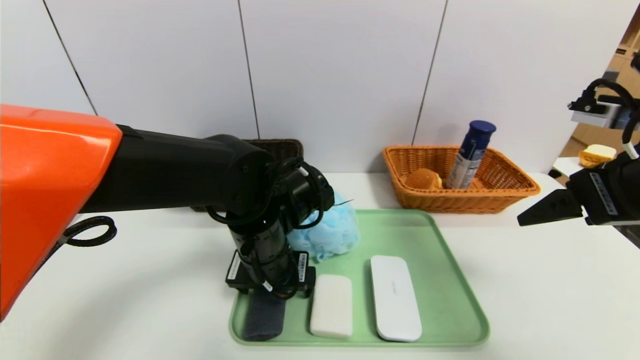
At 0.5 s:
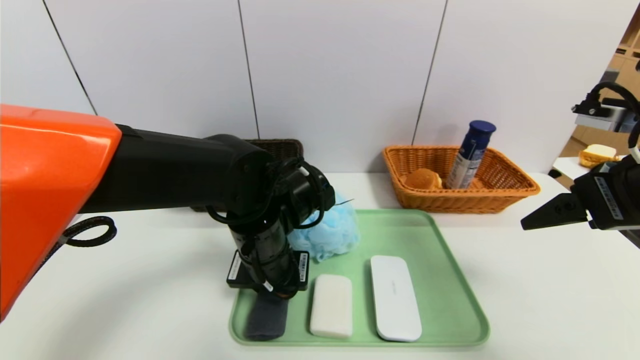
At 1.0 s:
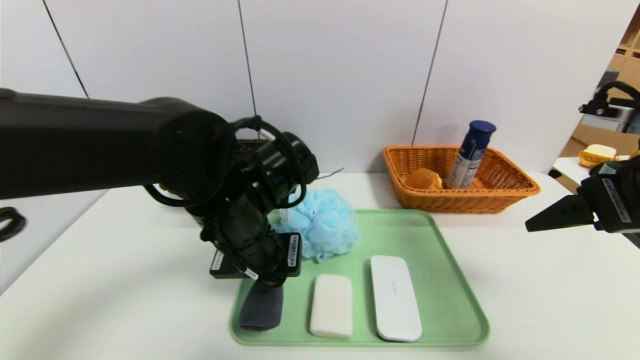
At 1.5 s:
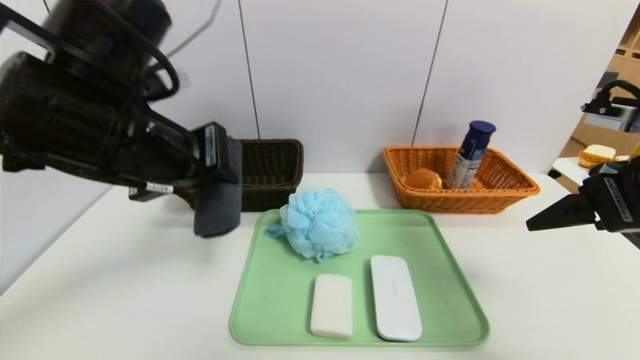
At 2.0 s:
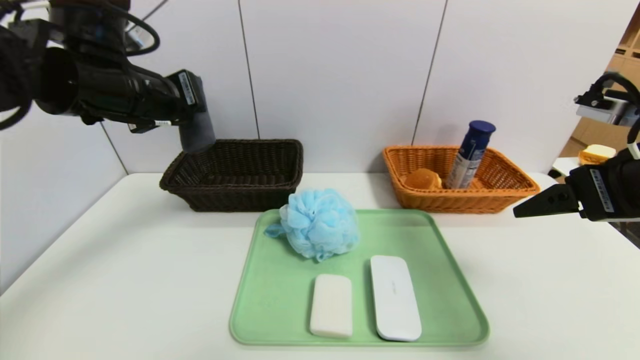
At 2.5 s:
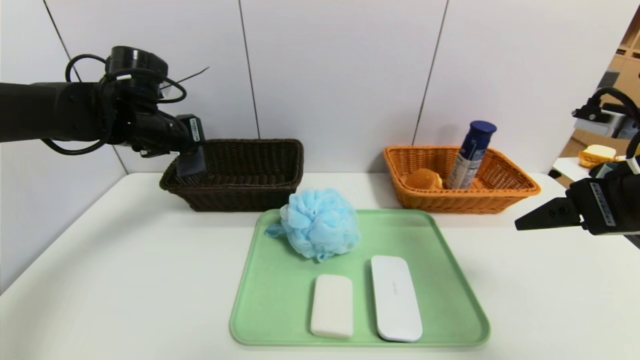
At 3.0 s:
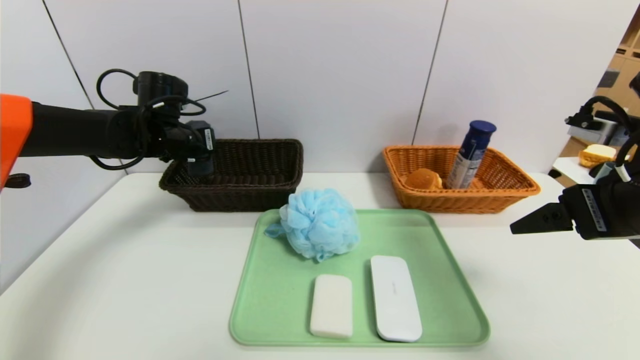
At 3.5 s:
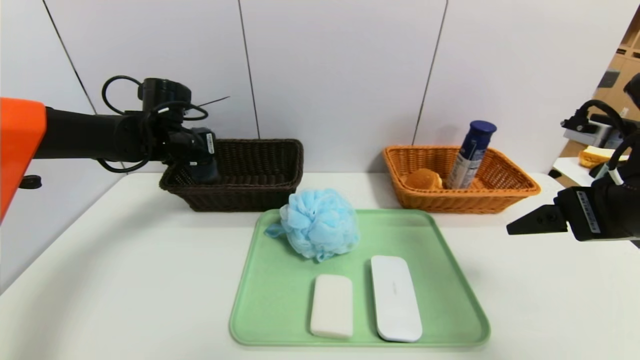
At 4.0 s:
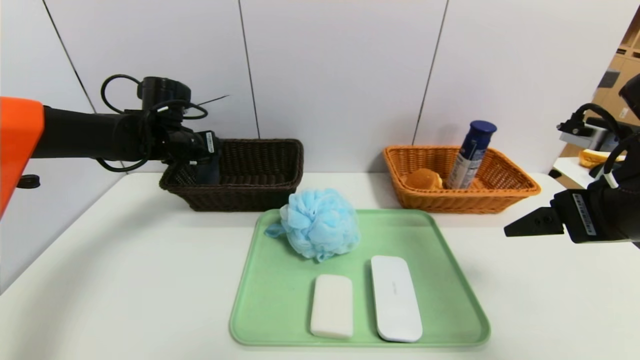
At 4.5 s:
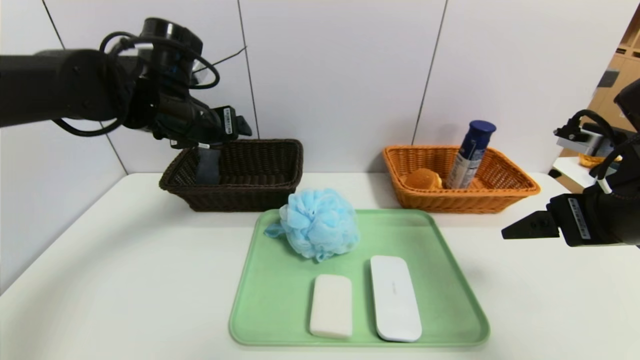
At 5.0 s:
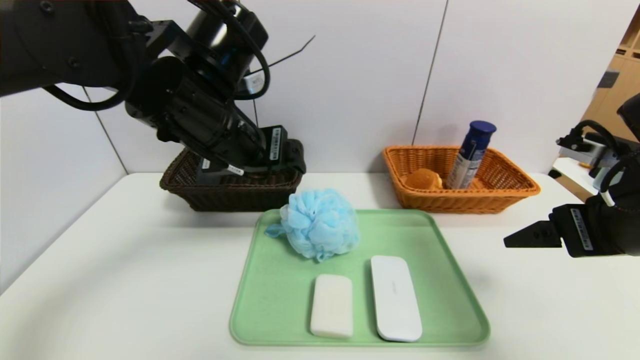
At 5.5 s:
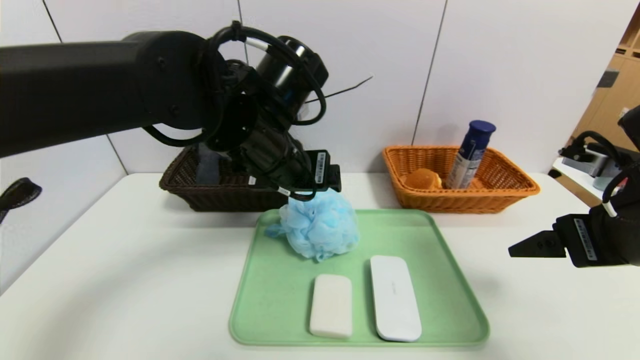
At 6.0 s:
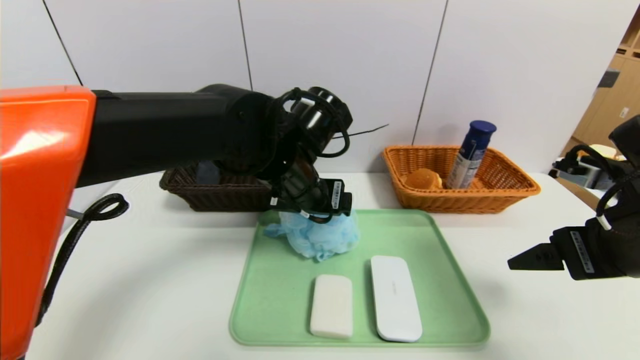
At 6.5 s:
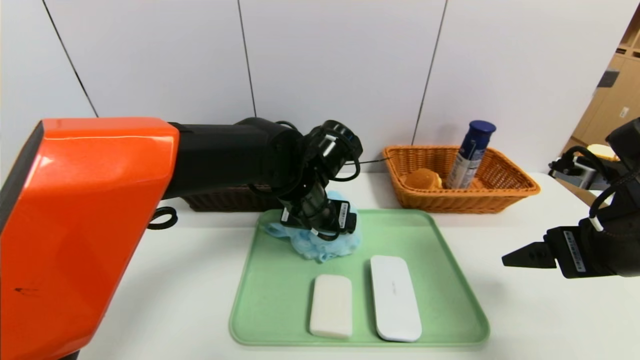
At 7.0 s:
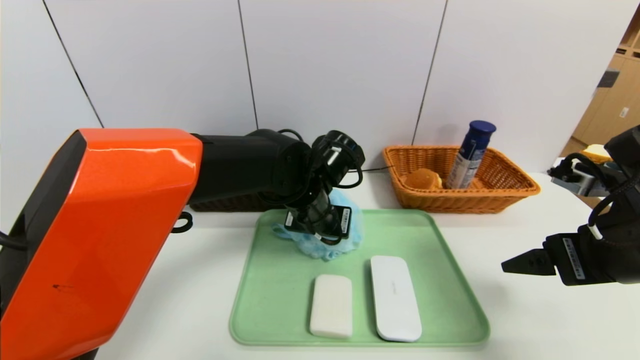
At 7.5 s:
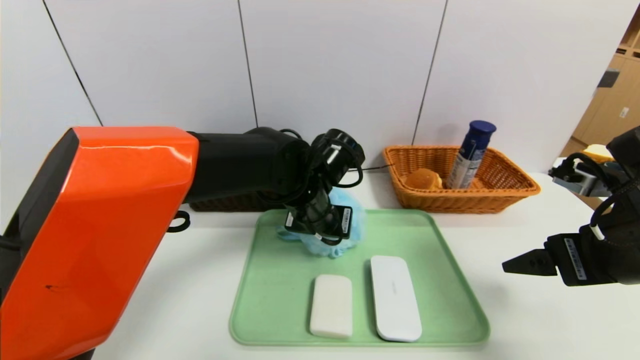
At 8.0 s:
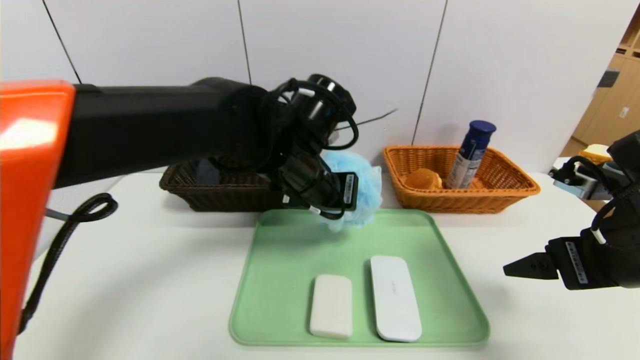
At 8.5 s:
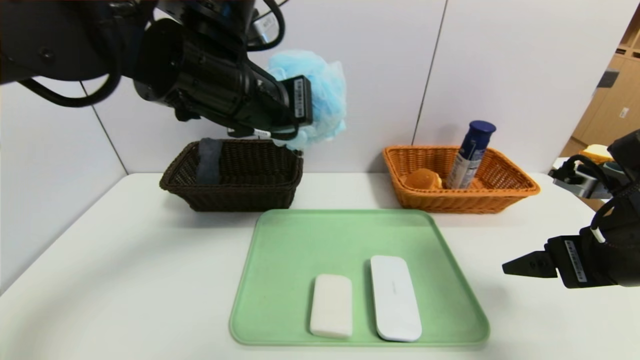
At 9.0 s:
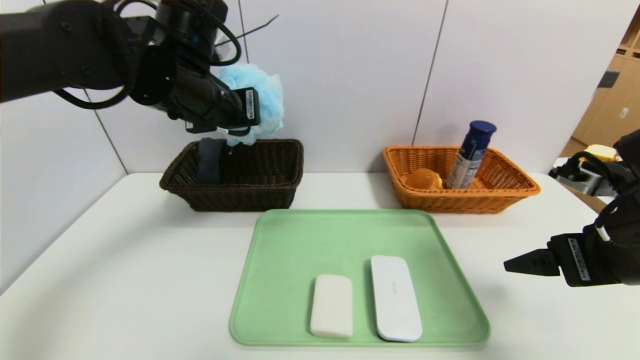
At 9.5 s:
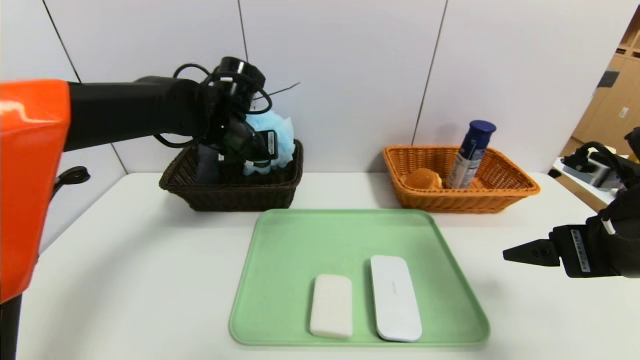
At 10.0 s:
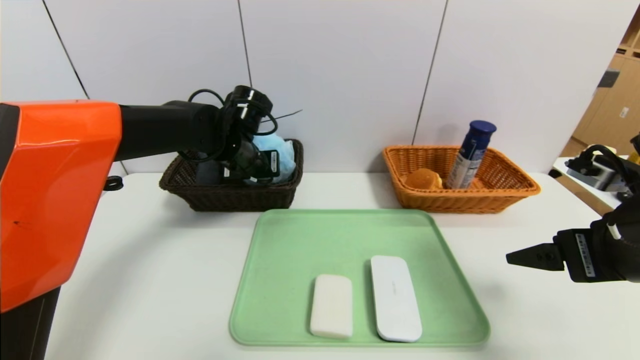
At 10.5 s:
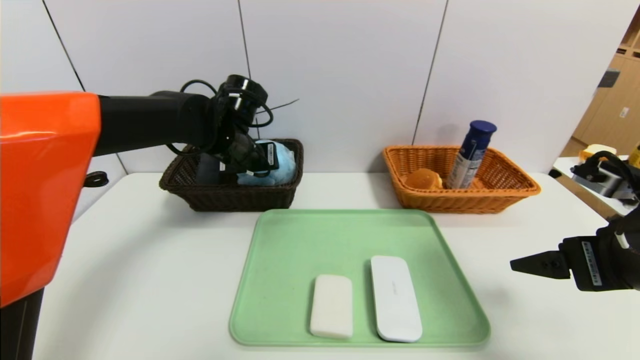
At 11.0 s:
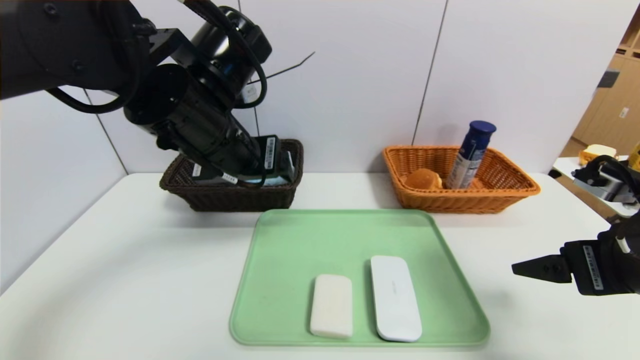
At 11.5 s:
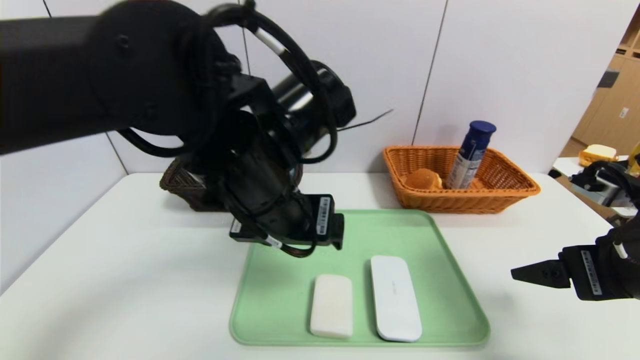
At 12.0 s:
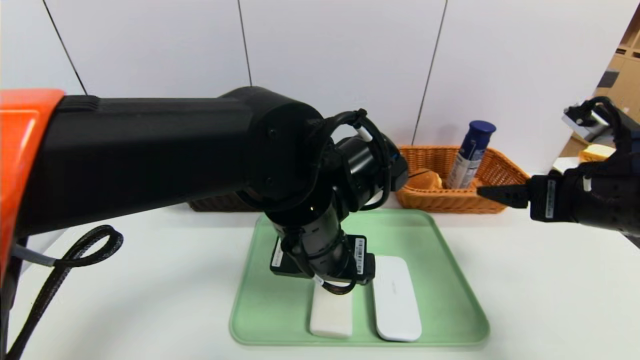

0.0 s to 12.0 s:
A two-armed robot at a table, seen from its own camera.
Task of the whole recording: place the food in the right basket with the right gripper, and place the non food items in the left basket with the left gripper.
Step, 0.0 to 4.5 s: Grasp the grey towel and put it in the left basket.
Step, 5.0 to 11.0 s: Grasp the shower sphere and put it in the left basket.
0.0 to 2.0 s: The left gripper shifts roughly 20 cm upward and to the left, and closes its fingers.
2.0 to 4.0 s: The left gripper is displaced forward and downward by roughly 15 cm, and opens up.
4.0 to 6.0 s: The left gripper heads to the right and backward, covering roughly 25 cm.
6.0 to 8.0 s: The left gripper closes up.
8.0 to 10.0 s: The left gripper heads forward and to the left, covering approximately 15 cm.
10.0 to 12.0 s: The left gripper travels backward and to the right by approximately 25 cm, and opens.

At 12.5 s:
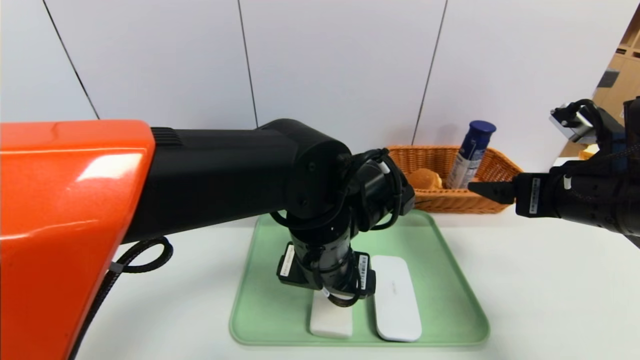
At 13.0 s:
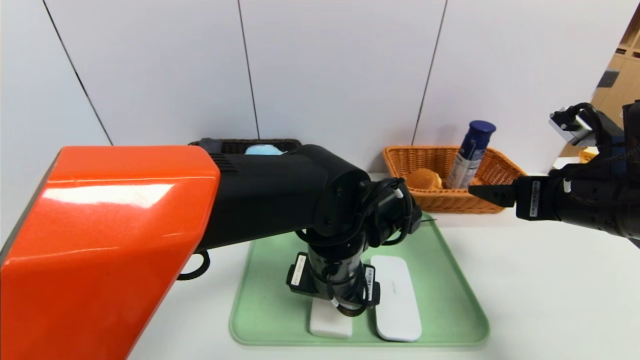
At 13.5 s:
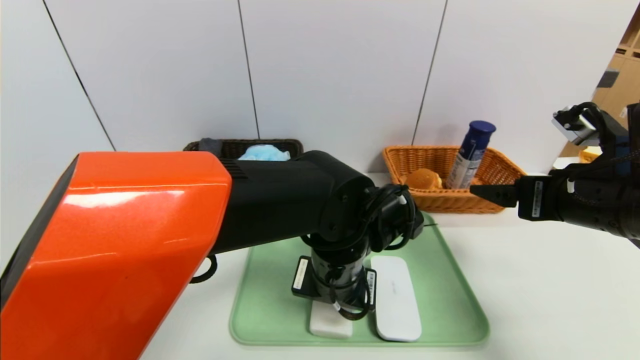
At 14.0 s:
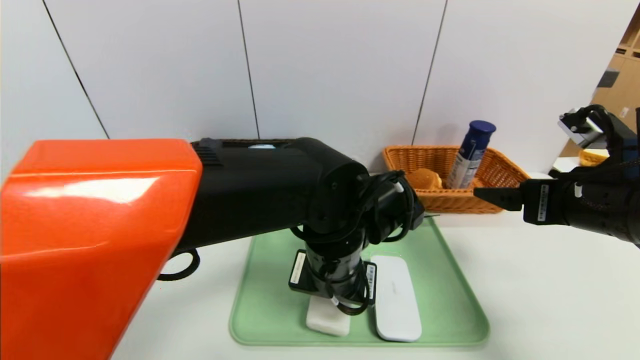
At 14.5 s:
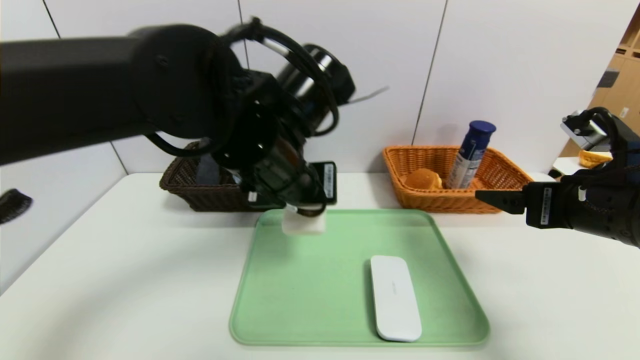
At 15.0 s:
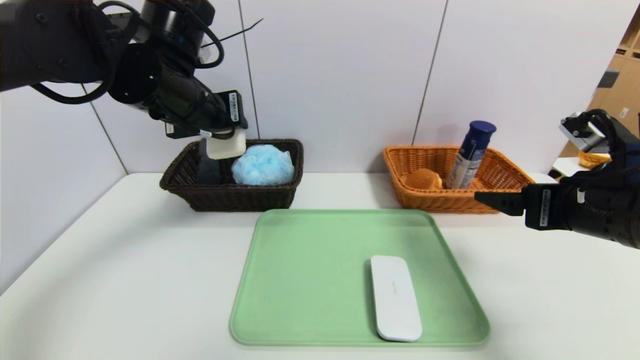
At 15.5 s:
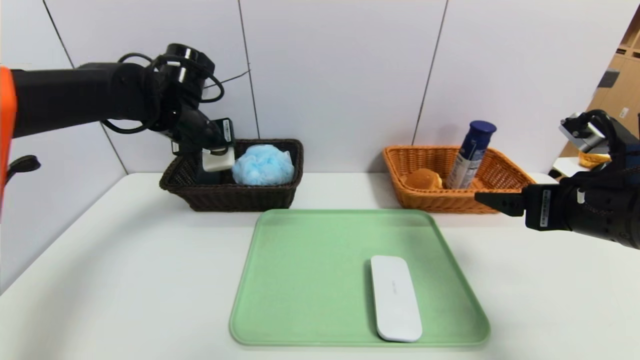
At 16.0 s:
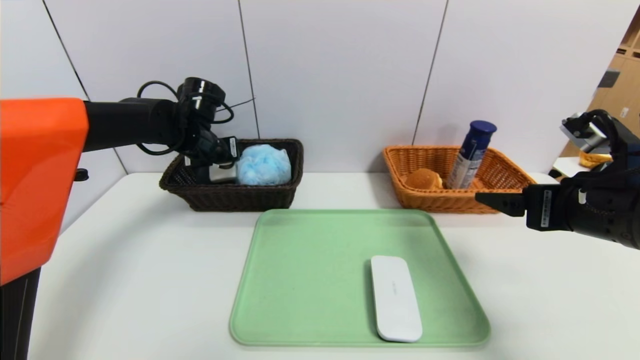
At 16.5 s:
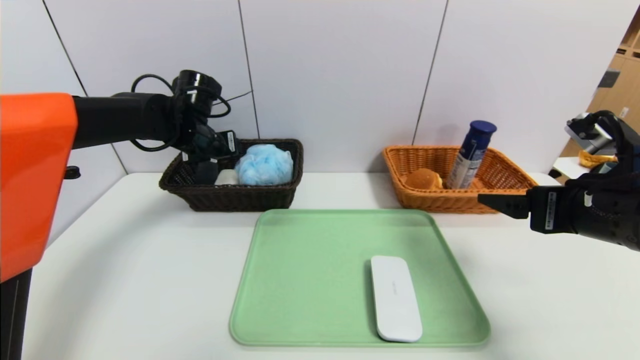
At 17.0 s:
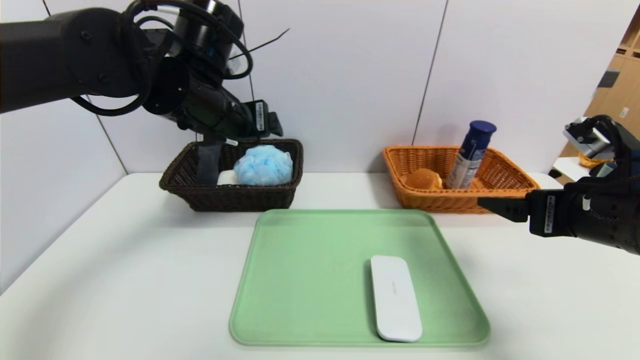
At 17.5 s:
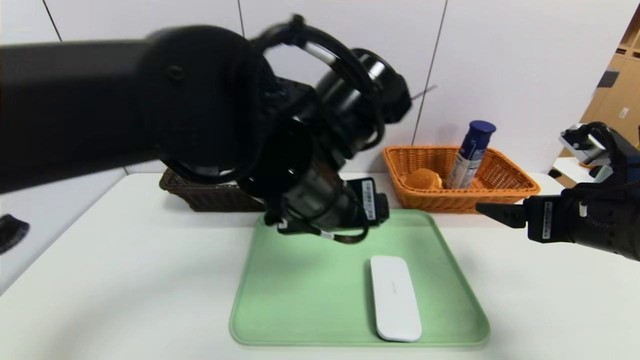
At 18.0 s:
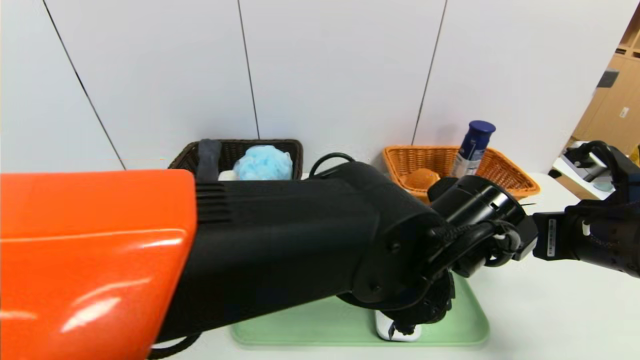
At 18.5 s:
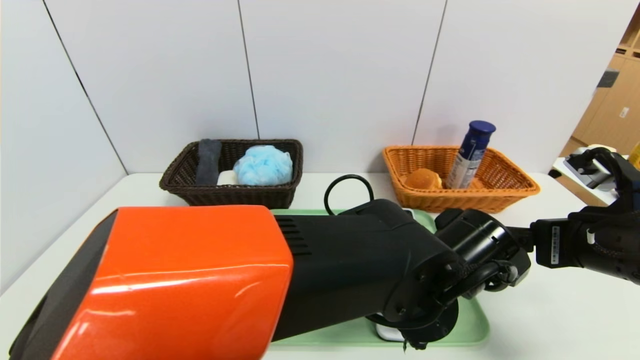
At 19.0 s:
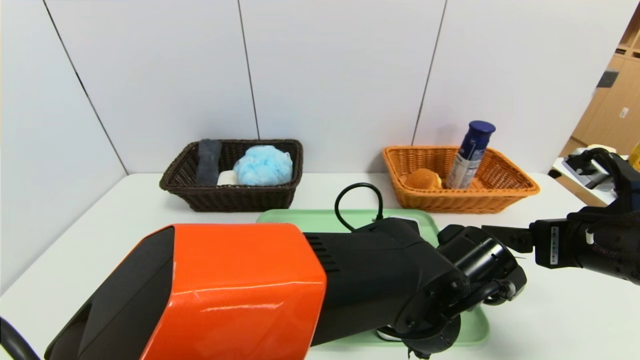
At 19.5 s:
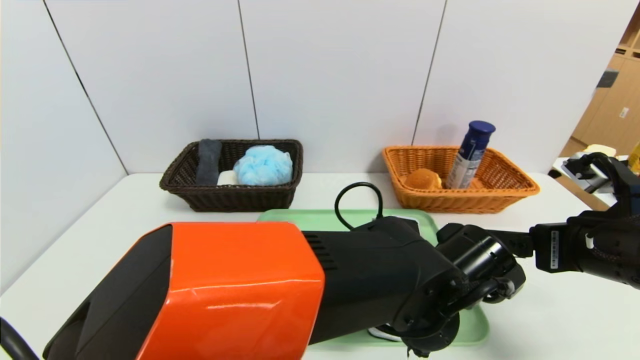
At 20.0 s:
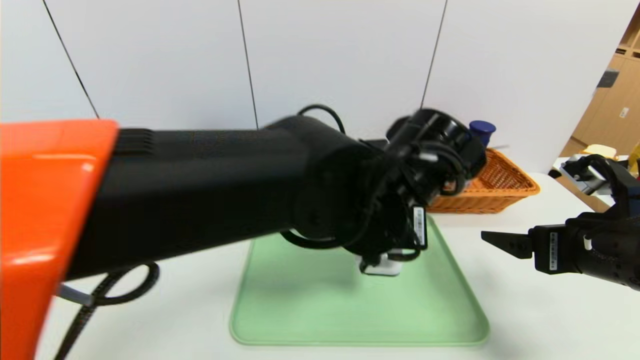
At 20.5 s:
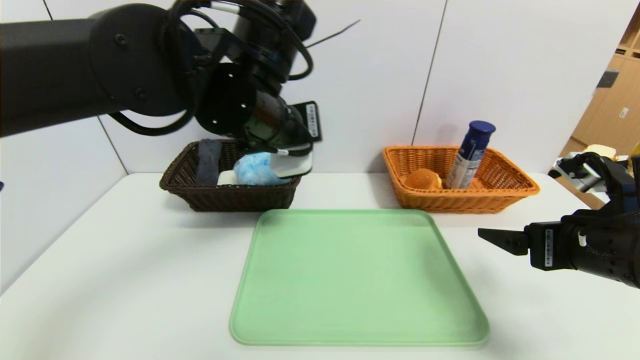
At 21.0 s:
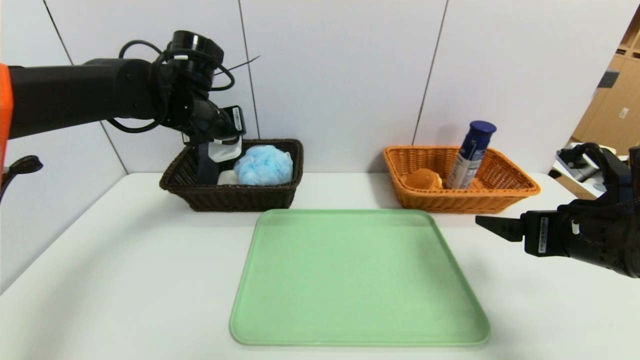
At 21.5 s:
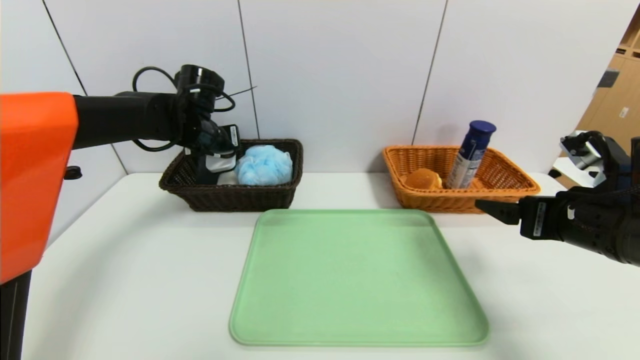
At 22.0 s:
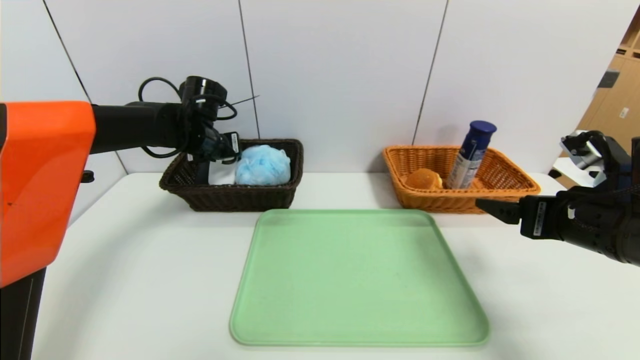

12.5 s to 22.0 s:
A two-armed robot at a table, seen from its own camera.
Task of the whole recording: place the food in the right basket with the right gripper, and place the non food items in the left basket with the left gripper.
Step, 12.5 to 17.0 s: Grasp the white eraser and put it in the left basket.
12.5 to 14.5 s: The left gripper is displaced upward and to the left by about 10 cm, and closes its fingers.
14.5 to 16.5 s: The left gripper shifts roughly 25 cm forward and to the left.
16.5 to 18.0 s: The left gripper shifts roughly 40 cm to the right and backward.
18.0 to 20.0 s: The left gripper reaches some 5 cm downward, then returns, and closes up.
20.0 to 22.0 s: The left gripper is displaced to the left and forward by about 35 cm.
